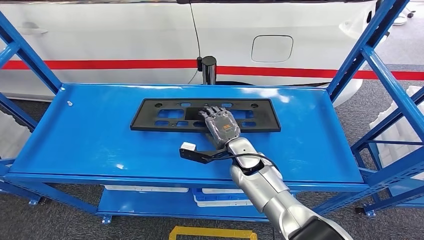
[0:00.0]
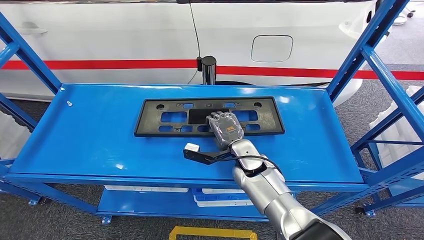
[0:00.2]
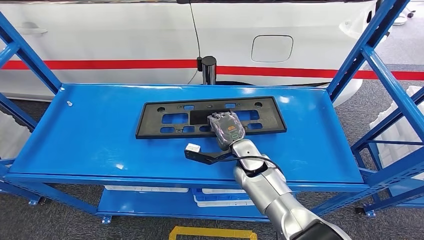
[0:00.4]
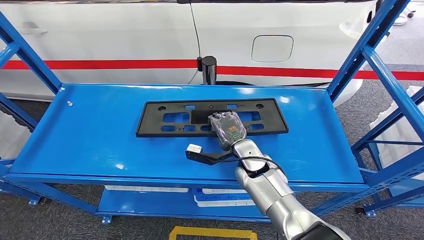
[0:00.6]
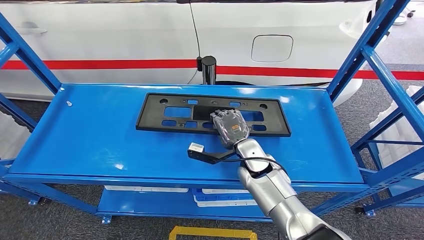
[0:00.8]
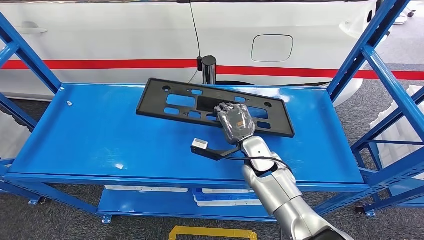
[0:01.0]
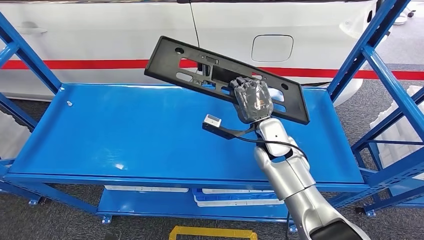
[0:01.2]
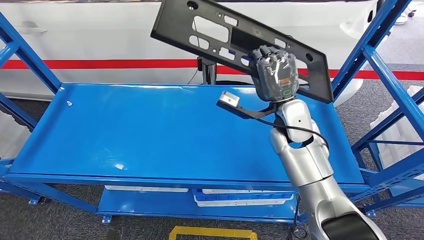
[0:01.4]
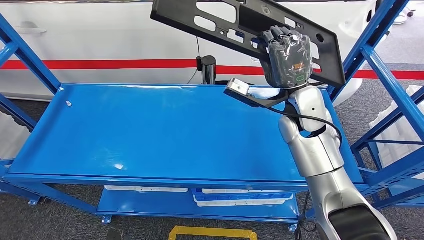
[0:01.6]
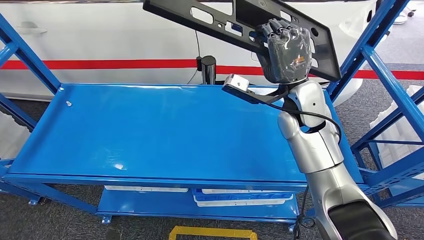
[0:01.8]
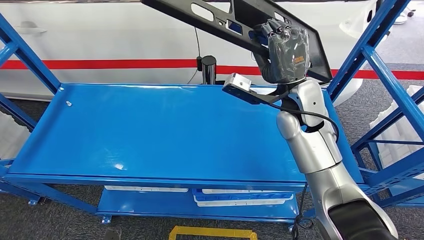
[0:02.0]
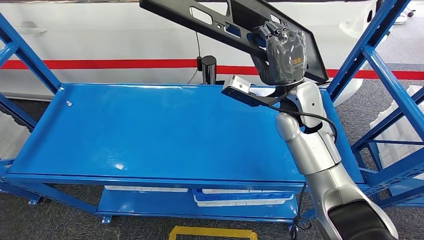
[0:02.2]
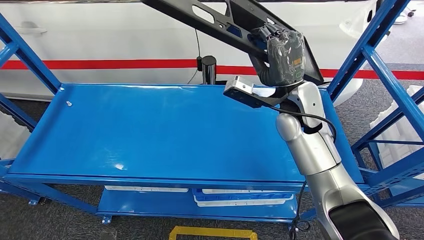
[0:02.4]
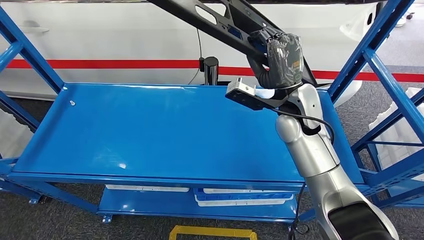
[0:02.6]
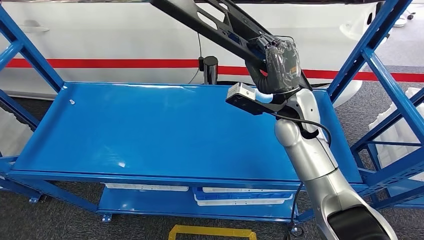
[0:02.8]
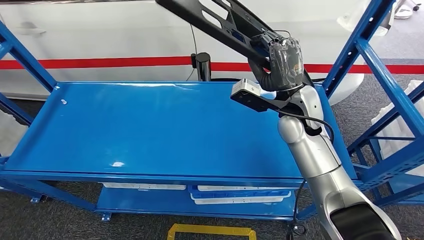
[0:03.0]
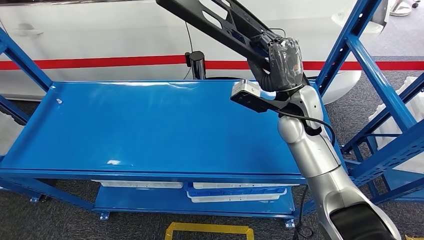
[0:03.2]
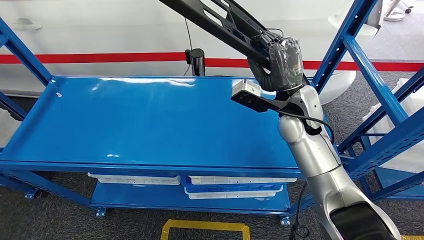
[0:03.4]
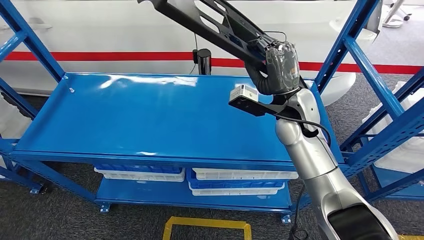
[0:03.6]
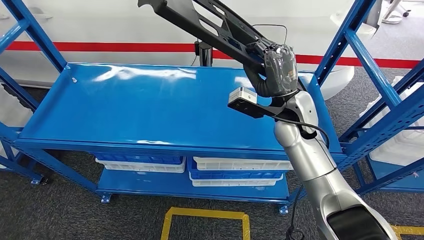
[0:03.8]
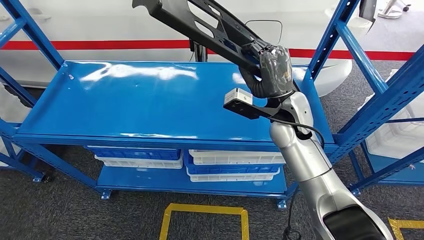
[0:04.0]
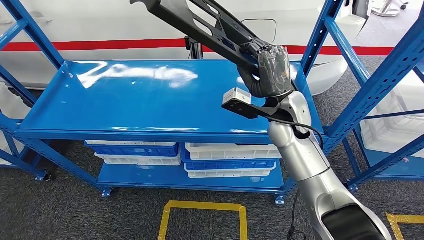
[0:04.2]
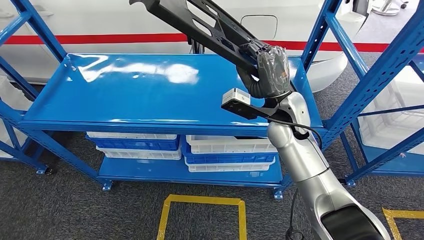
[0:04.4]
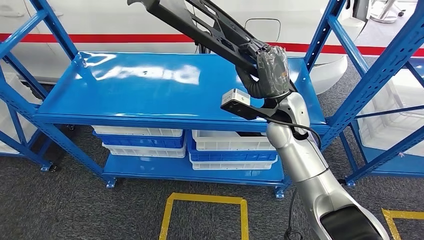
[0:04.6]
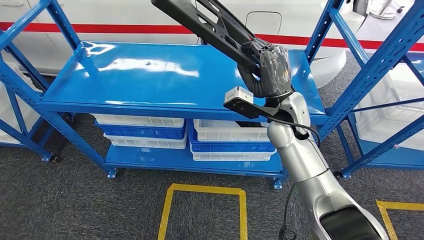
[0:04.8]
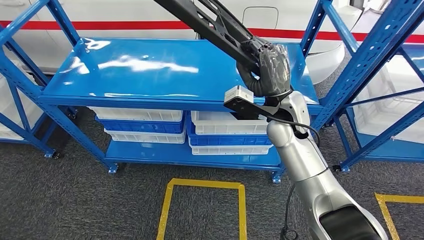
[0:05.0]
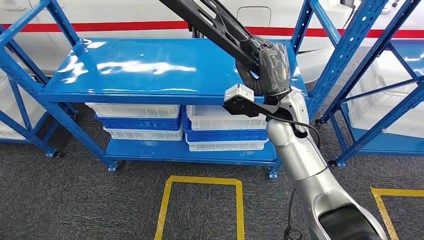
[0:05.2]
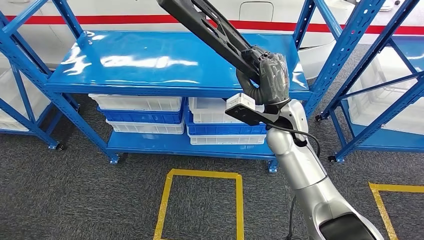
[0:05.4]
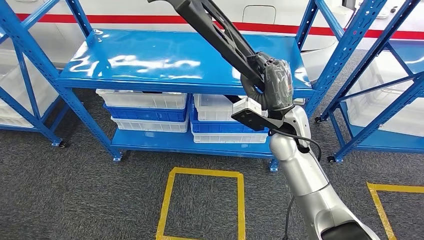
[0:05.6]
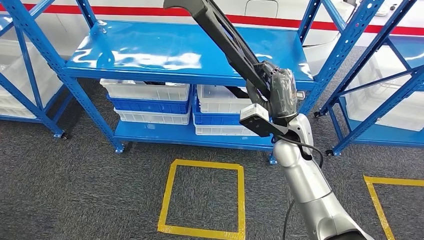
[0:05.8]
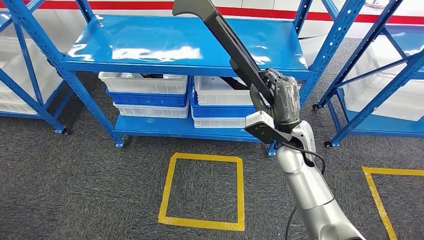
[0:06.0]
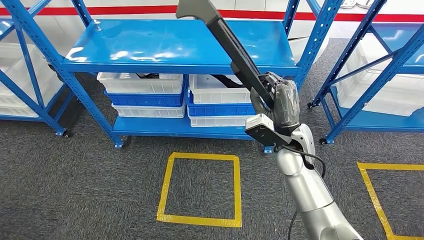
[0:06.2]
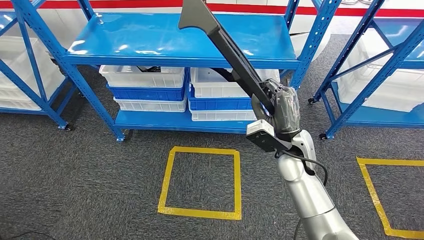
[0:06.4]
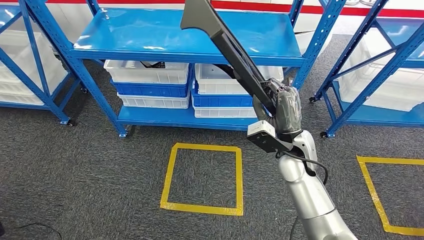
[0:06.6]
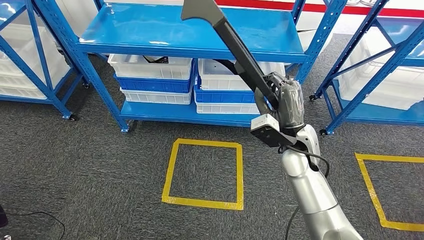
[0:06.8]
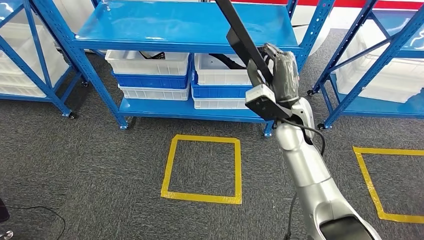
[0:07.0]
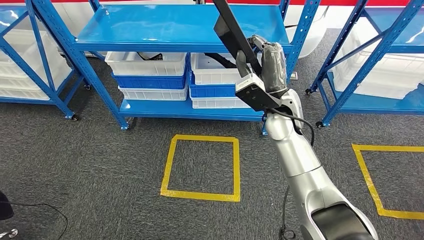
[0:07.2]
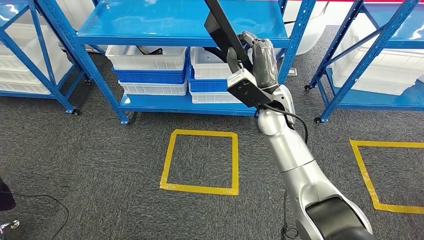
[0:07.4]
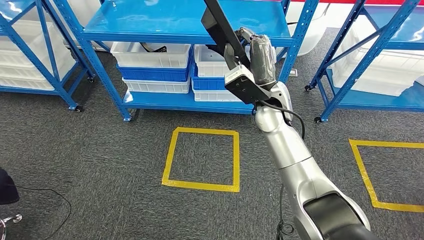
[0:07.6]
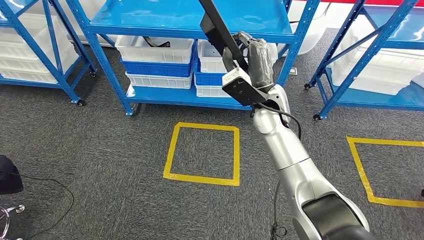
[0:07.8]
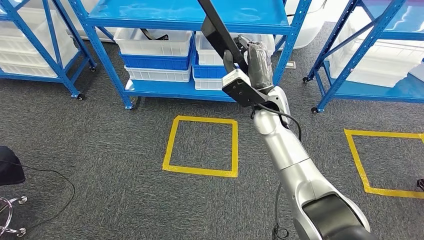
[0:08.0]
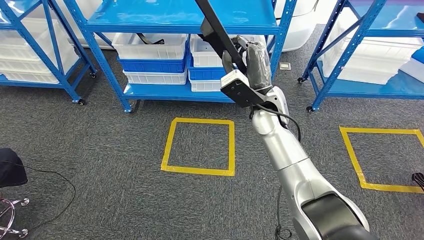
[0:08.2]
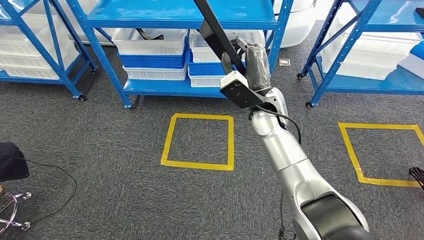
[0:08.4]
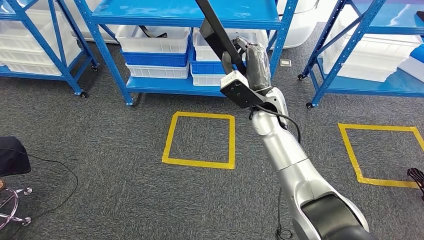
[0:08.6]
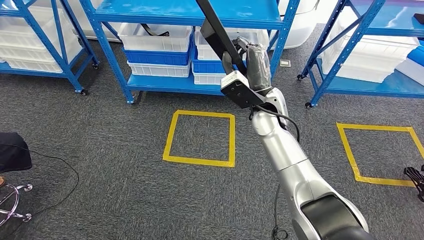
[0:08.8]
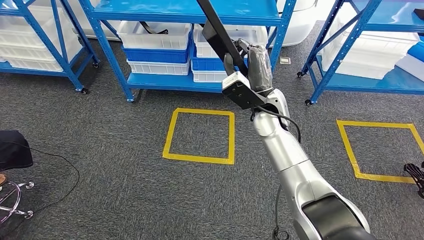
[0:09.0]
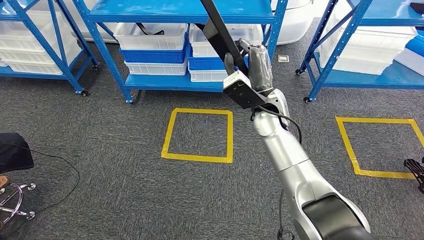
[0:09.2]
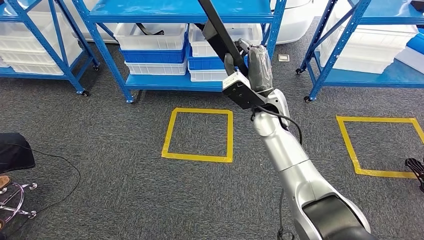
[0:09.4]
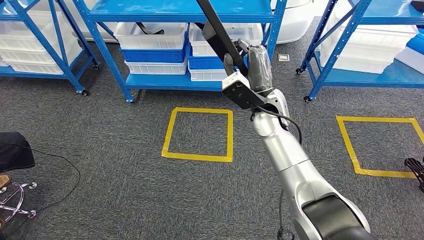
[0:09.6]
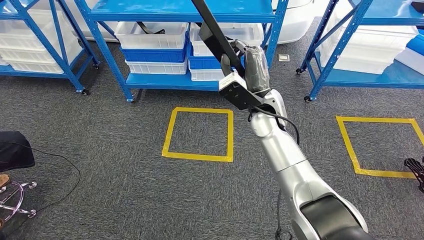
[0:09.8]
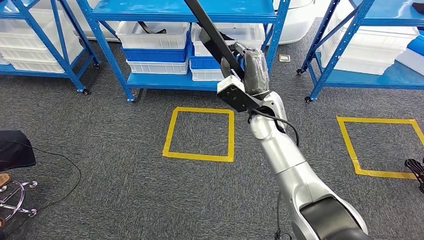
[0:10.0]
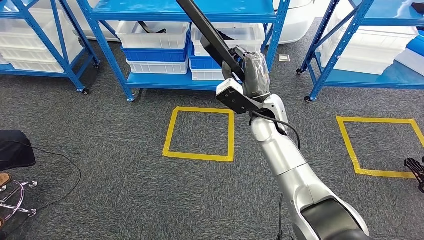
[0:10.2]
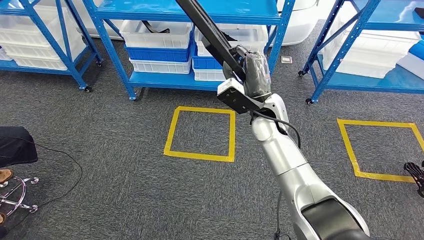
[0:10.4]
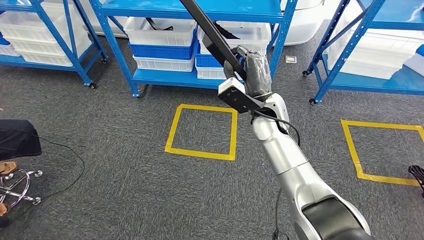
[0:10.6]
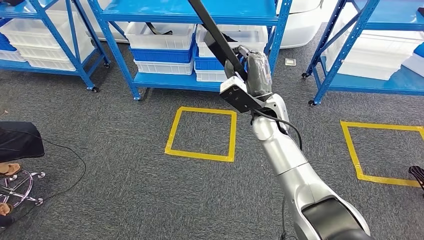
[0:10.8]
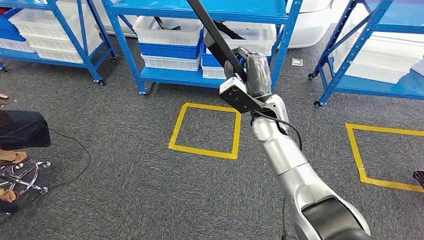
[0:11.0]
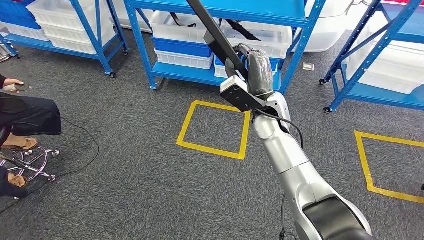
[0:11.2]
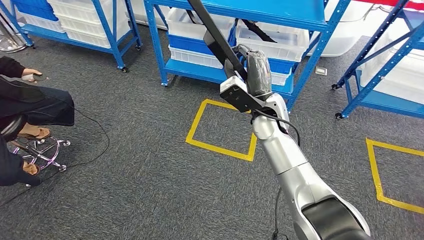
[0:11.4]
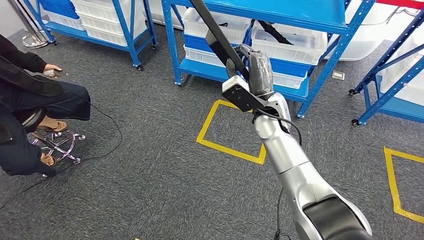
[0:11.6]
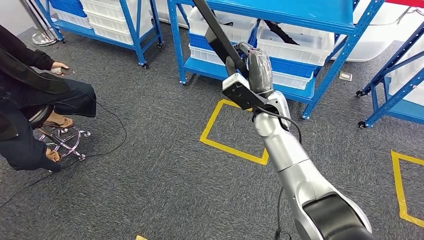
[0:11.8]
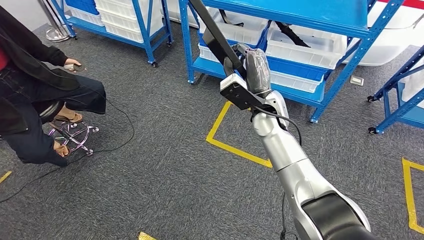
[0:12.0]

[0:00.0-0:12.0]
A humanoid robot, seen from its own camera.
Step, 0:00.0 to 0:05.6: Pick up the large material from the shelf.
0:09.0 to 0:10.4: Neither hand changes place.

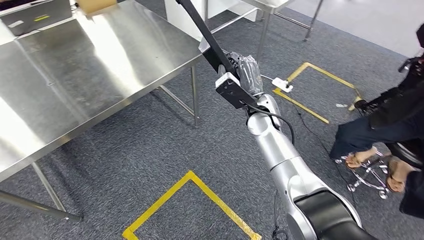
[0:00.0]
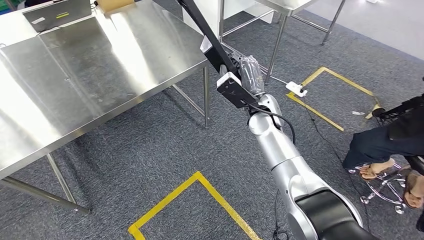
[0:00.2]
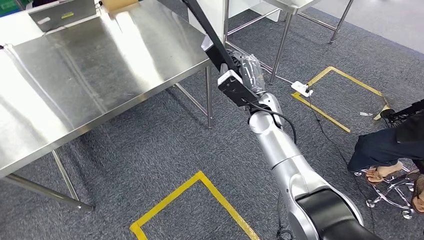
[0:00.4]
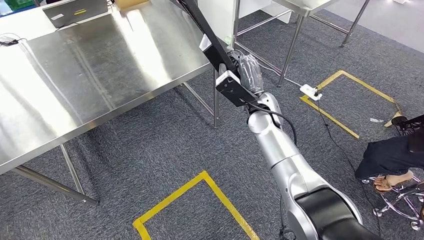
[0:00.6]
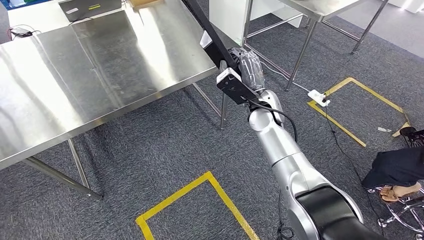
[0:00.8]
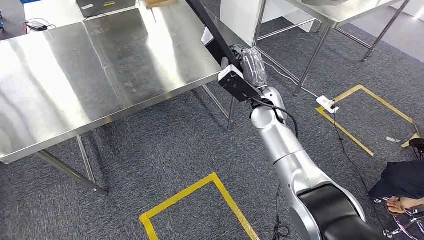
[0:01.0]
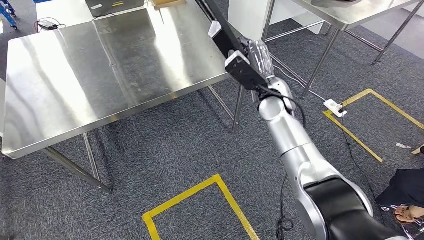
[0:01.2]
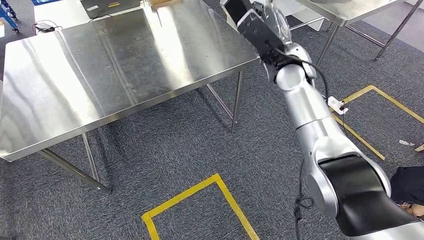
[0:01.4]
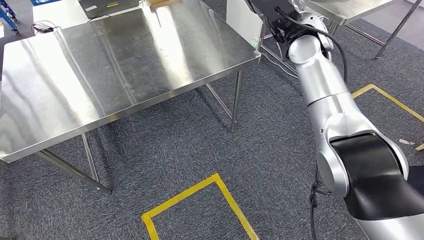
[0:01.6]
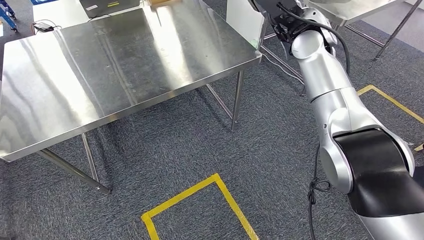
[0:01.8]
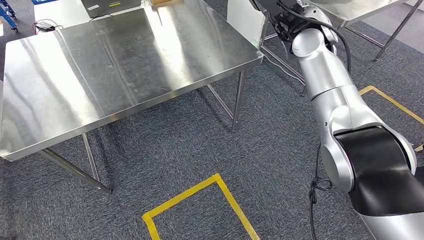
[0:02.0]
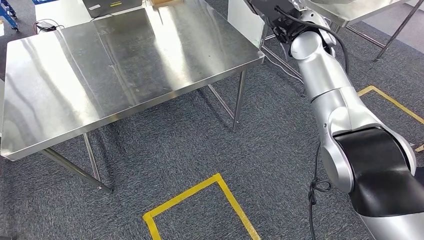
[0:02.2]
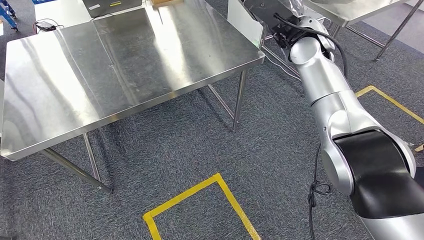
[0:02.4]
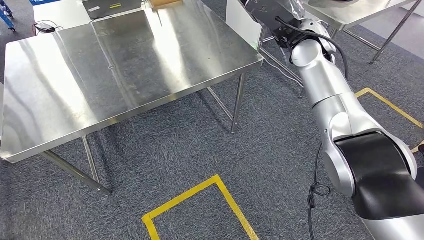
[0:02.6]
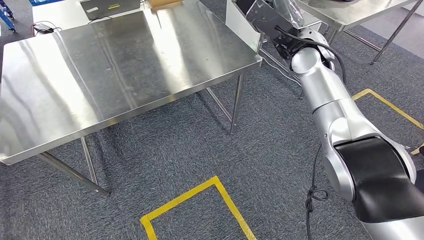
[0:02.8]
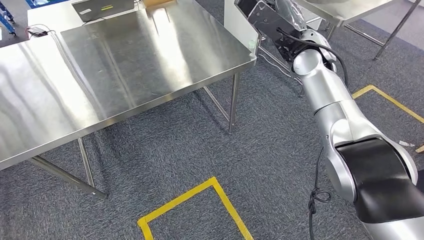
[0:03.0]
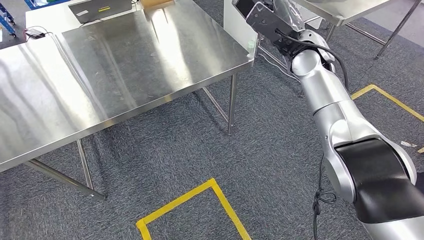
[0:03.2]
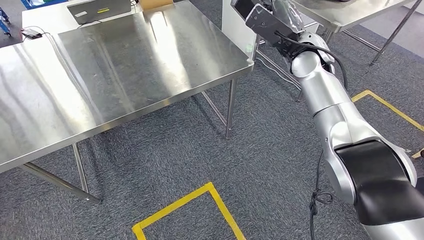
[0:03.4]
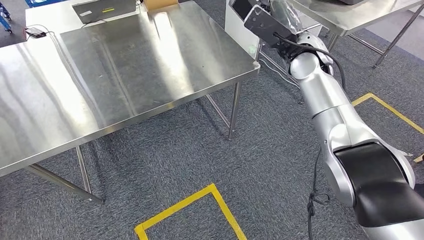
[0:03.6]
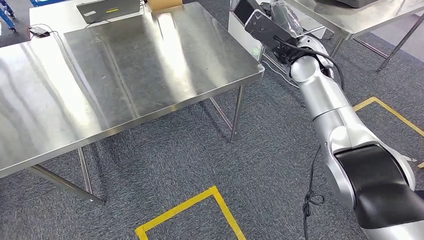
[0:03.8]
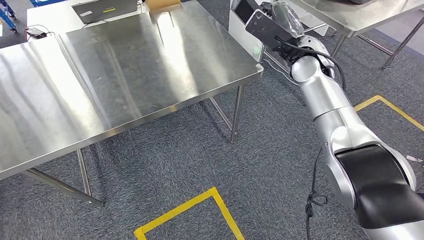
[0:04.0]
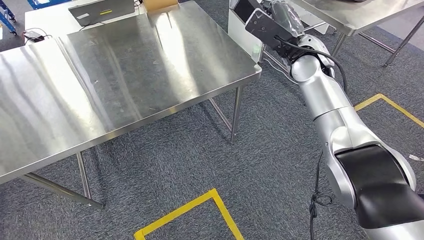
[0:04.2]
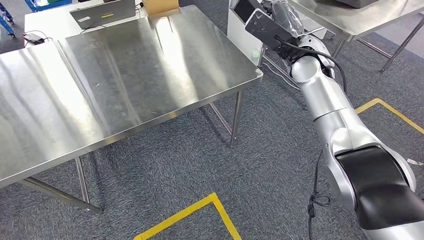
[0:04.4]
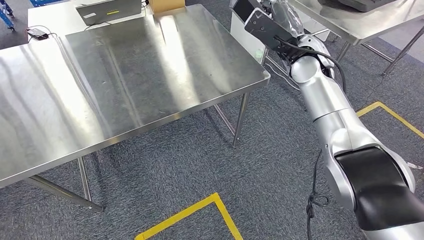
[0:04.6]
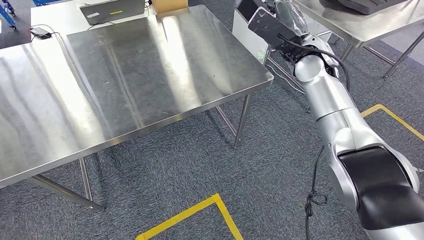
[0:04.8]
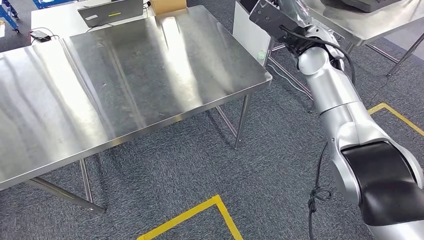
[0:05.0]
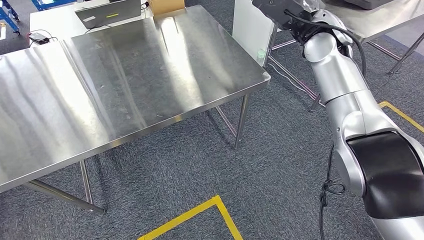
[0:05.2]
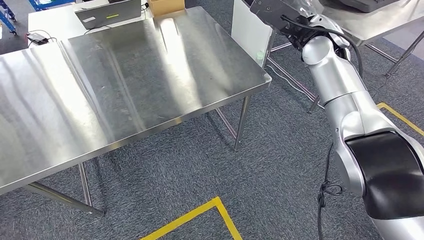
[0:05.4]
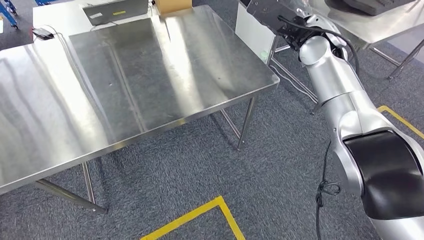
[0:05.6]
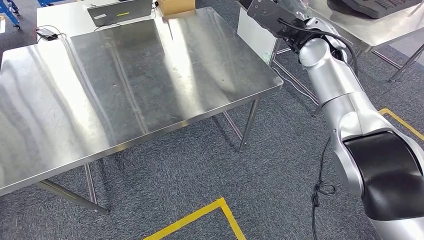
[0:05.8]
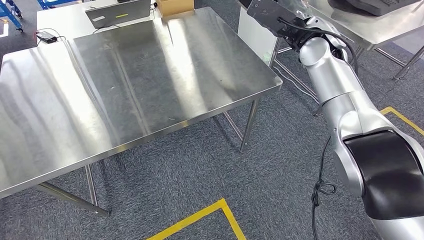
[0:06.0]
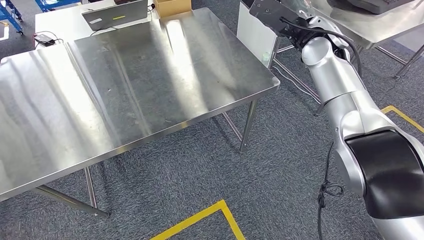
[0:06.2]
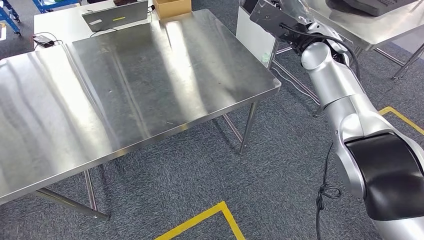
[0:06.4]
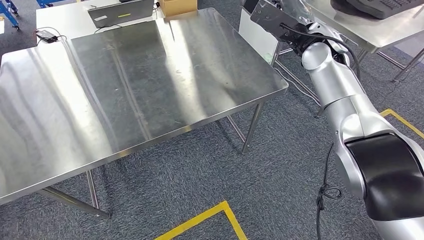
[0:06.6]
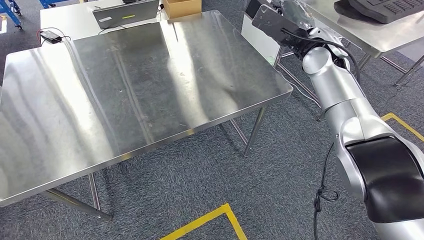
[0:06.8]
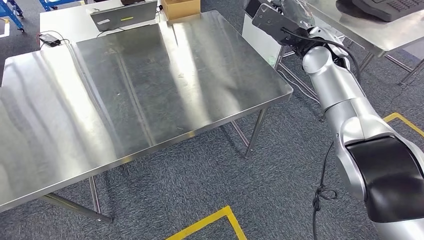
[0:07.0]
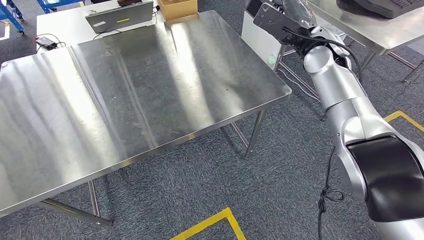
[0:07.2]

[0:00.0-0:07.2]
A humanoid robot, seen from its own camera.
Step, 0:00.0 to 0:04.2: Move the large material to the workbench.
